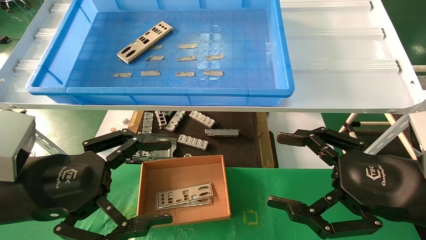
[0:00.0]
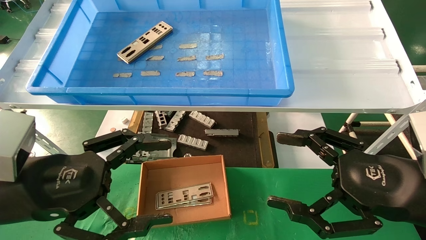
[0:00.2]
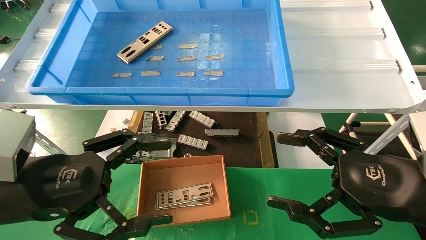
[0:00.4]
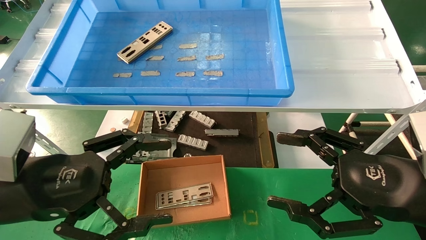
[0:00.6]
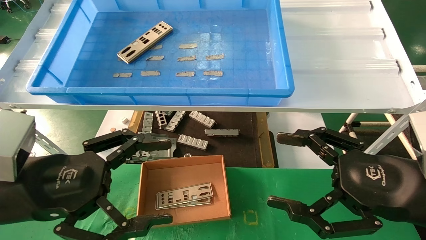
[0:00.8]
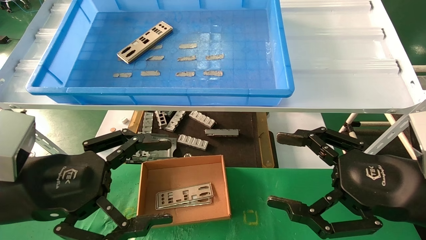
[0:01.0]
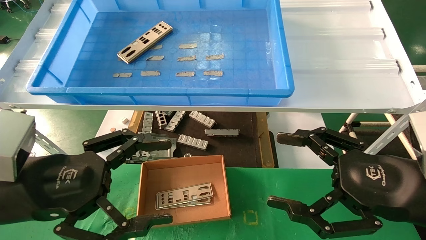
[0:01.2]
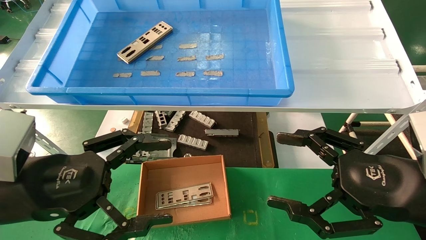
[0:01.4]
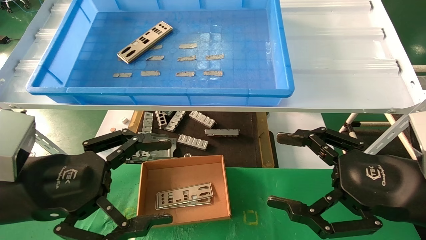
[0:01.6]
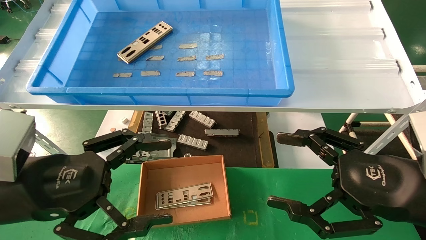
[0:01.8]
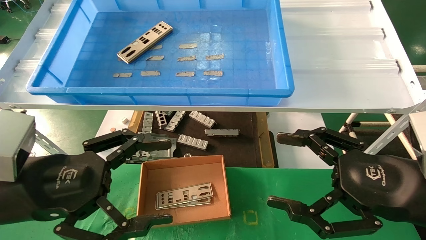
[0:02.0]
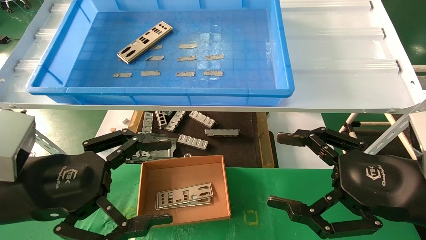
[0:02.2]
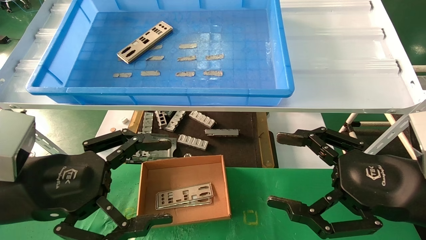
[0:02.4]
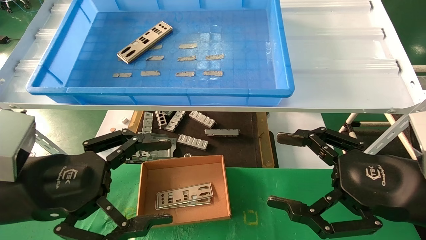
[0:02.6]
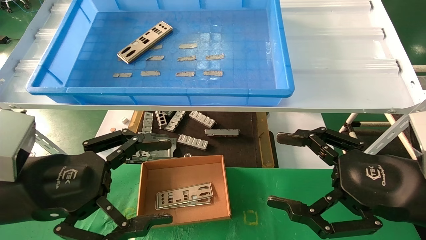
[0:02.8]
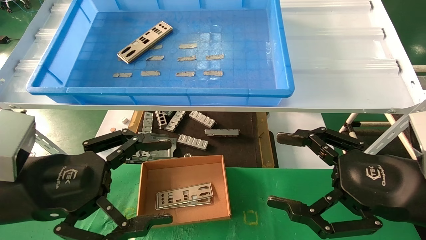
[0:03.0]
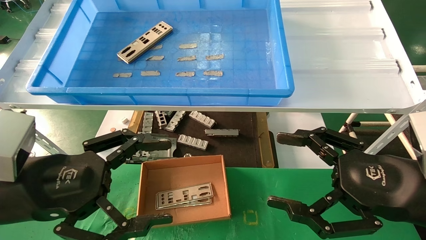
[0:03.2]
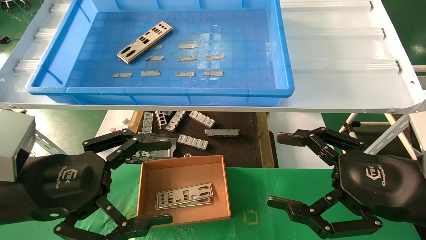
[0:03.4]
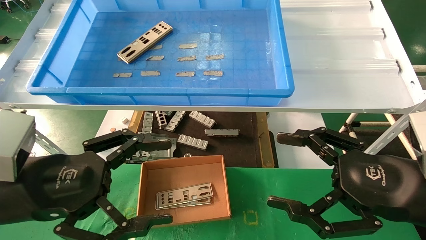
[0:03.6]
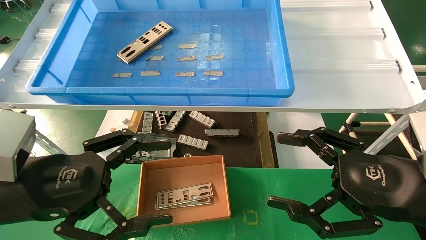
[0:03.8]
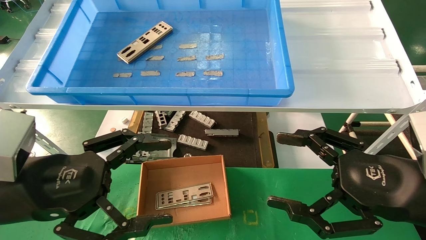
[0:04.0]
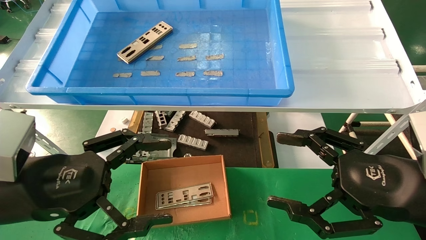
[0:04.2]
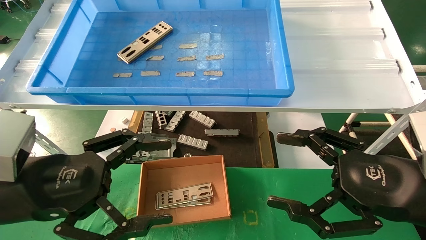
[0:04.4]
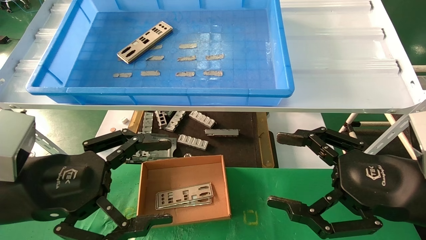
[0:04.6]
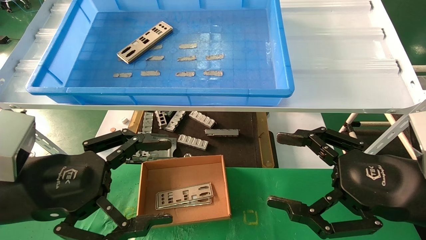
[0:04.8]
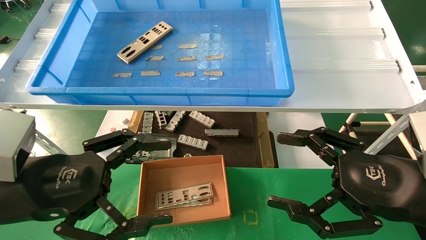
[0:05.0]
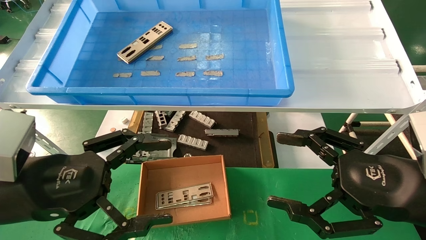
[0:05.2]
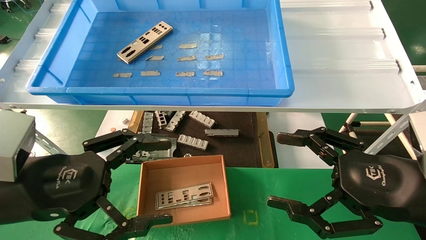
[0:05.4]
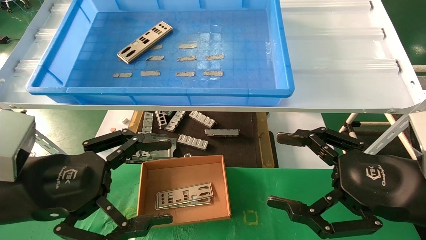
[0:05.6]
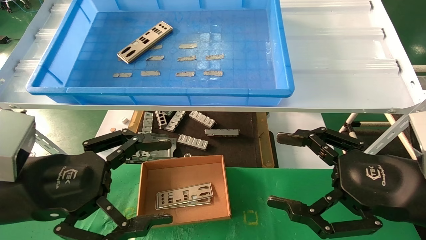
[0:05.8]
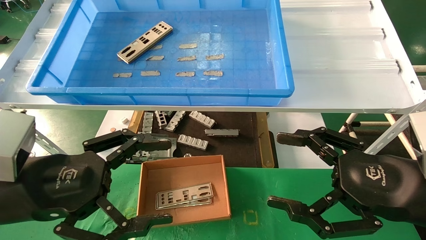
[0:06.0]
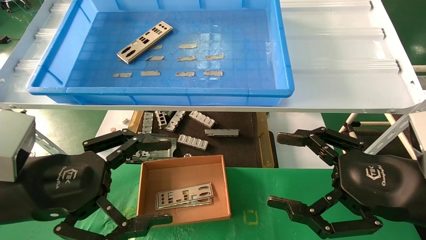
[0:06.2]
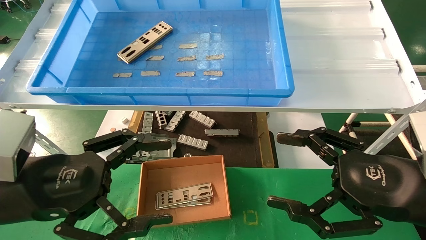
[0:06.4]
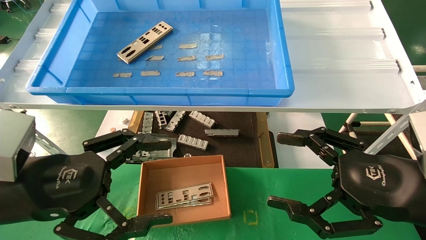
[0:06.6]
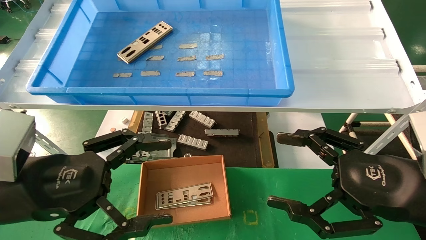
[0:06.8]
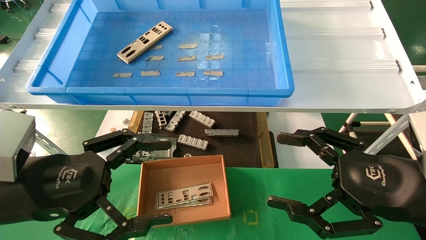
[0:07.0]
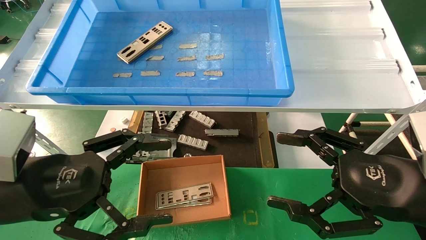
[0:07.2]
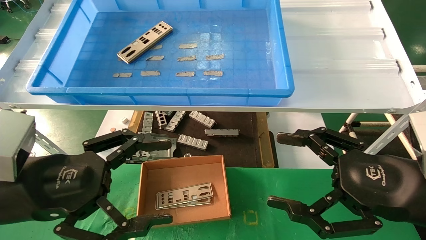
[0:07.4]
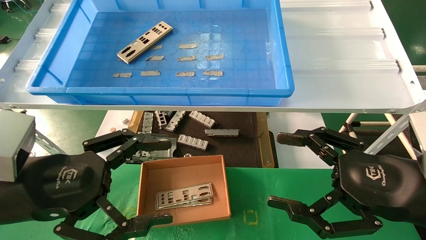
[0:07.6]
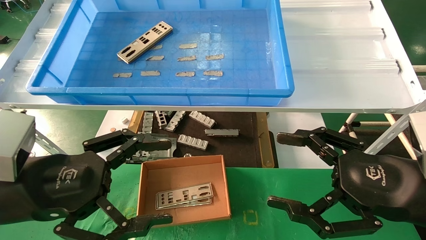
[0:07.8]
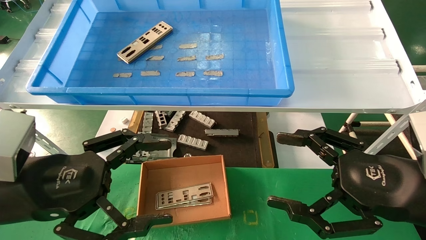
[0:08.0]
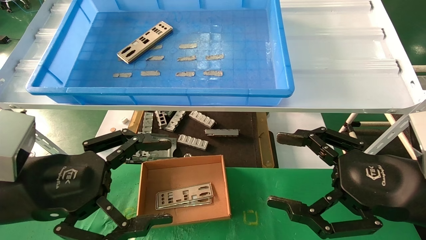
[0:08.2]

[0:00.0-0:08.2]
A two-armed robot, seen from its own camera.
Task of the whole recording: pick up the parts on the tray and put them in the cardboard box.
0:00.0 to 0:08.2: Neither gripper changes place.

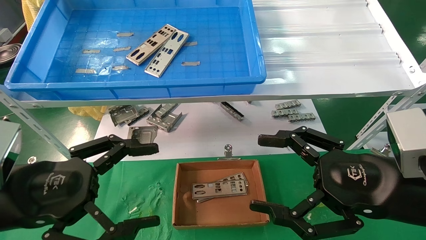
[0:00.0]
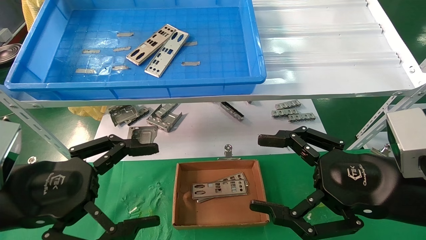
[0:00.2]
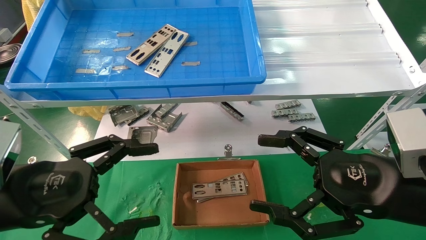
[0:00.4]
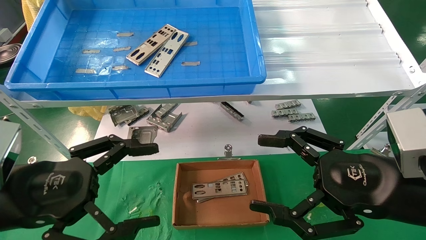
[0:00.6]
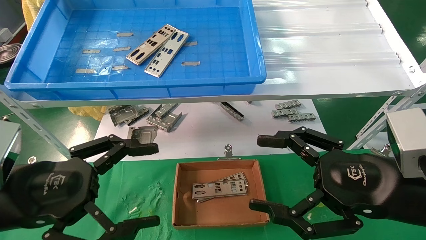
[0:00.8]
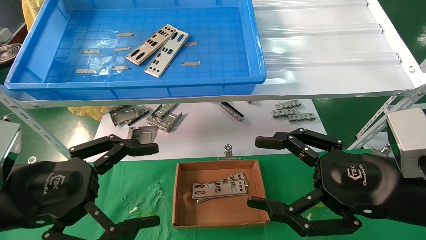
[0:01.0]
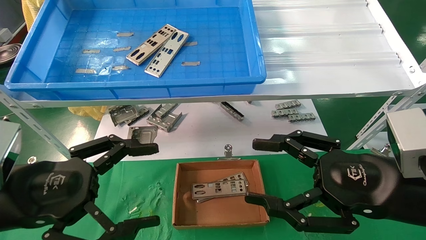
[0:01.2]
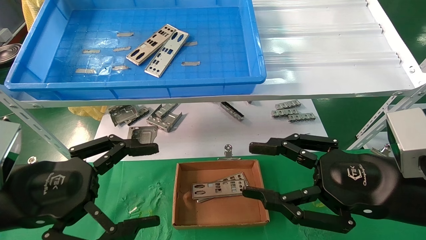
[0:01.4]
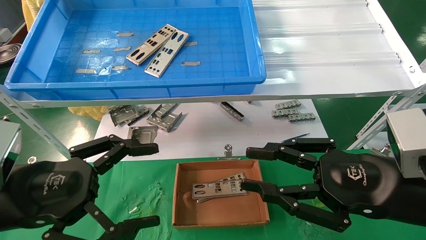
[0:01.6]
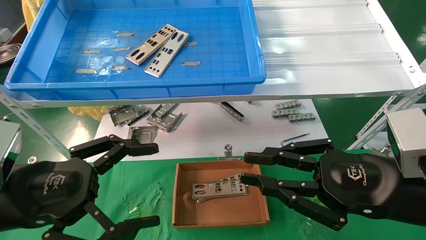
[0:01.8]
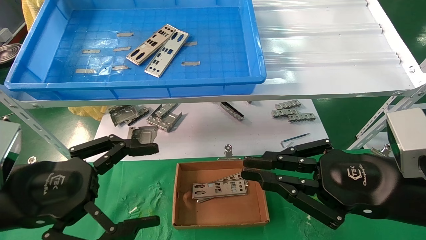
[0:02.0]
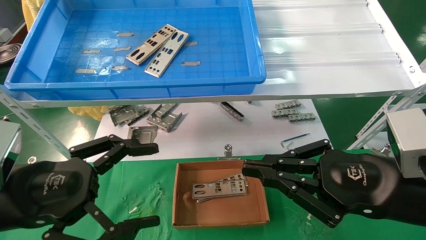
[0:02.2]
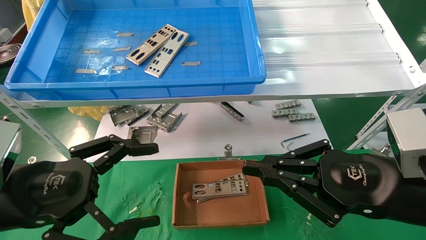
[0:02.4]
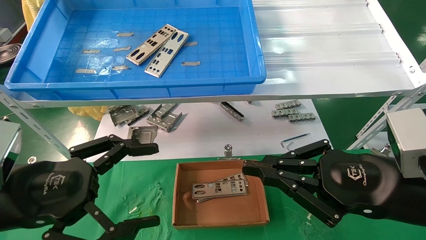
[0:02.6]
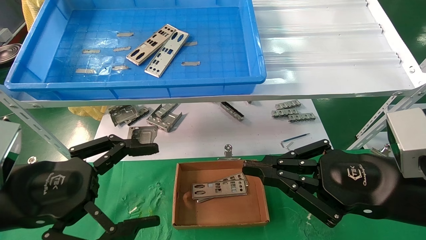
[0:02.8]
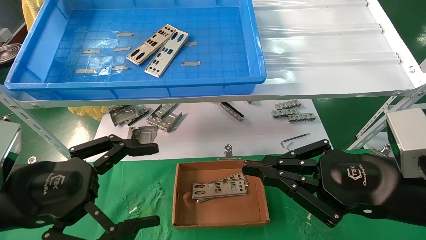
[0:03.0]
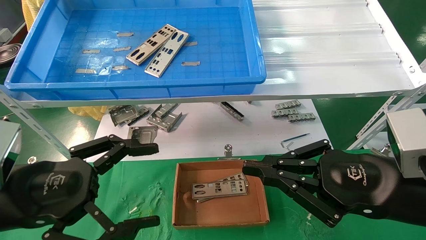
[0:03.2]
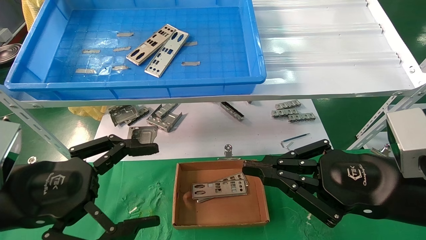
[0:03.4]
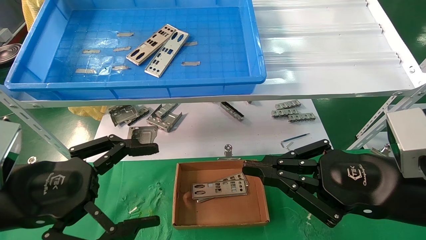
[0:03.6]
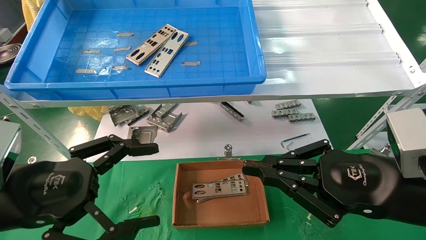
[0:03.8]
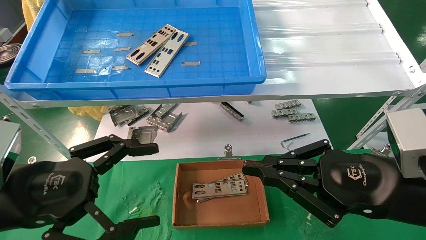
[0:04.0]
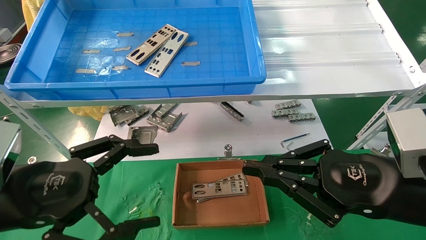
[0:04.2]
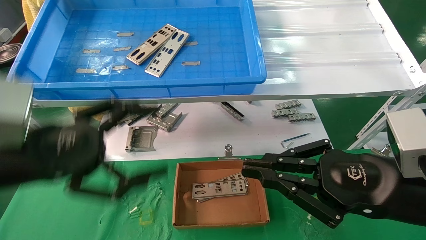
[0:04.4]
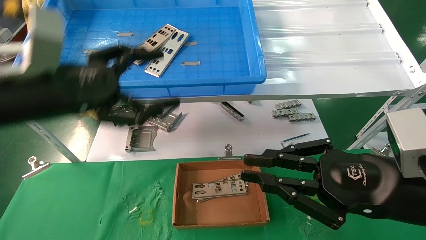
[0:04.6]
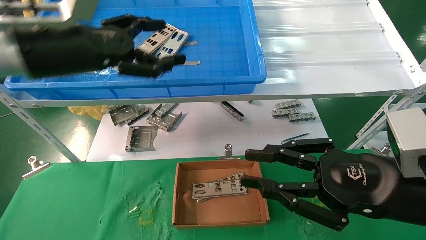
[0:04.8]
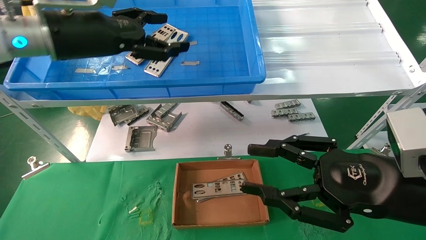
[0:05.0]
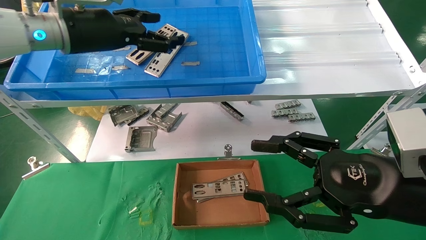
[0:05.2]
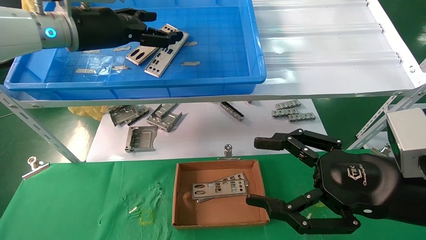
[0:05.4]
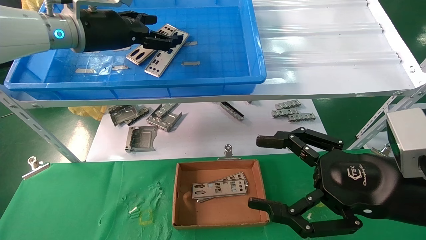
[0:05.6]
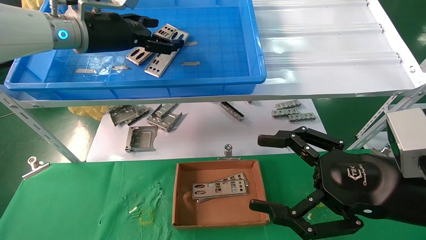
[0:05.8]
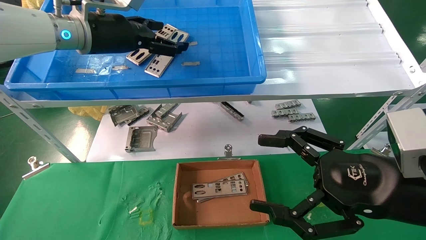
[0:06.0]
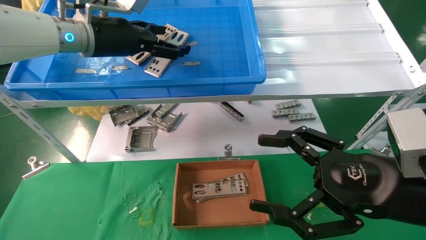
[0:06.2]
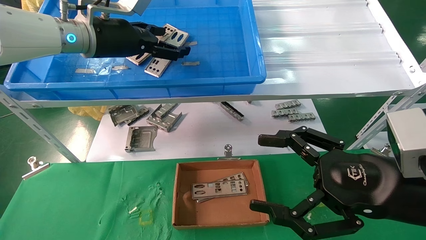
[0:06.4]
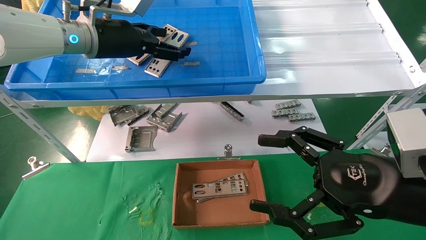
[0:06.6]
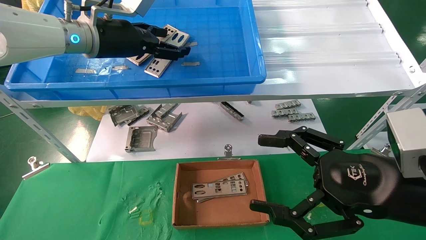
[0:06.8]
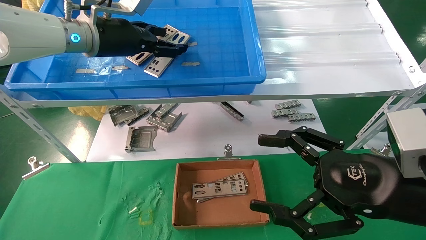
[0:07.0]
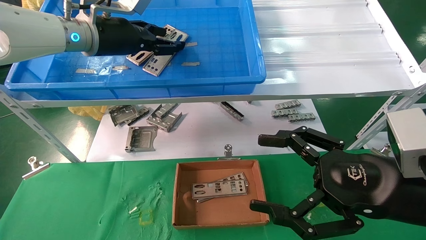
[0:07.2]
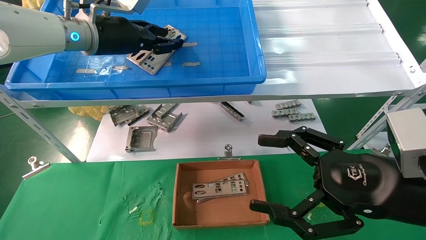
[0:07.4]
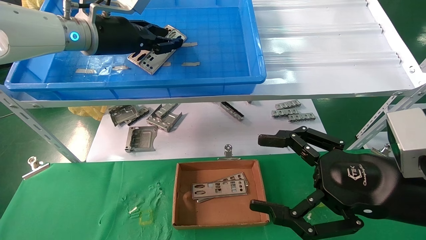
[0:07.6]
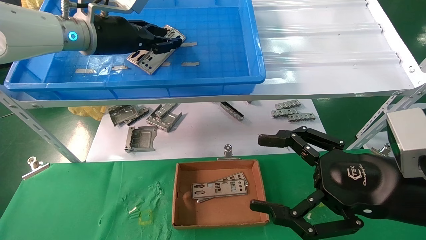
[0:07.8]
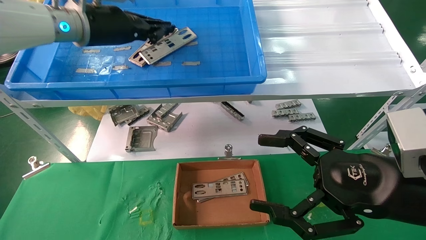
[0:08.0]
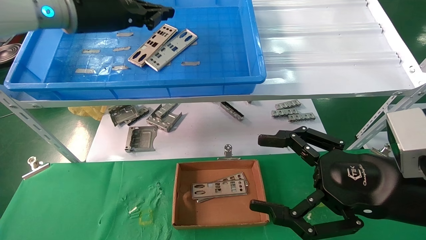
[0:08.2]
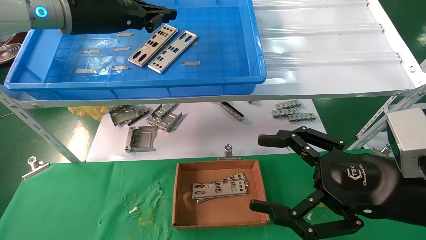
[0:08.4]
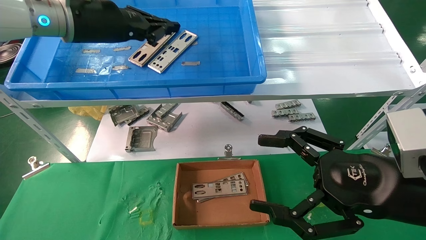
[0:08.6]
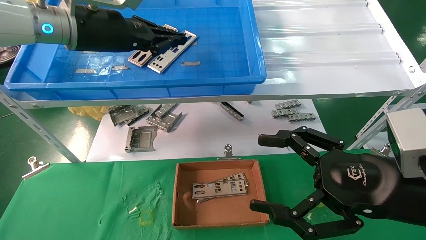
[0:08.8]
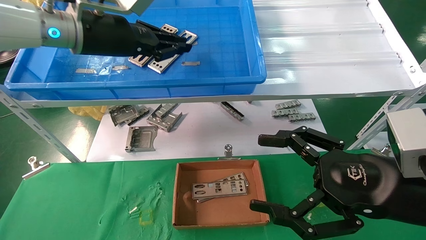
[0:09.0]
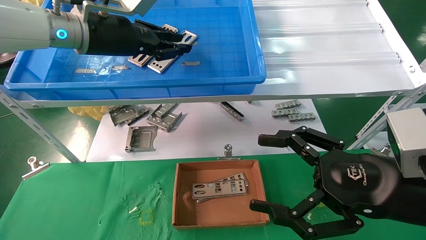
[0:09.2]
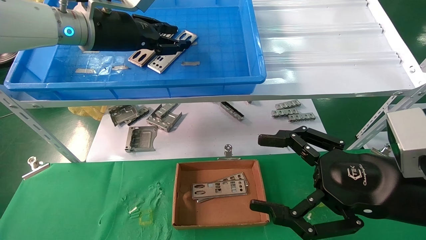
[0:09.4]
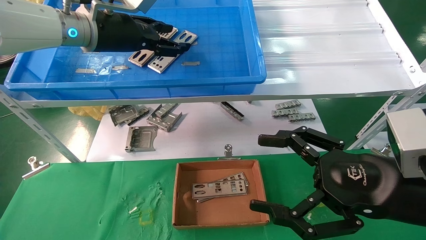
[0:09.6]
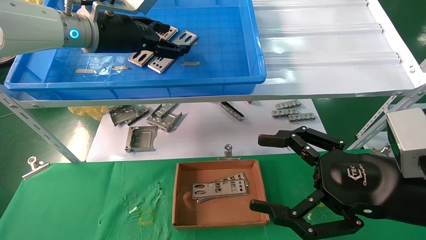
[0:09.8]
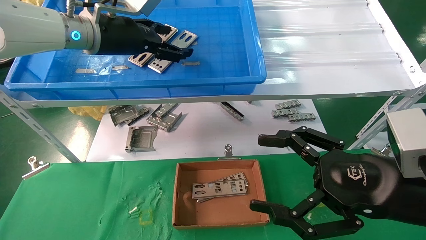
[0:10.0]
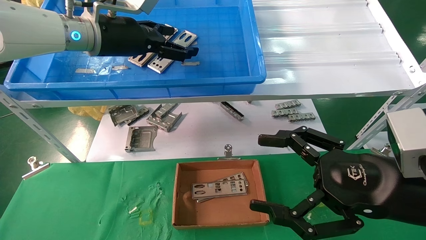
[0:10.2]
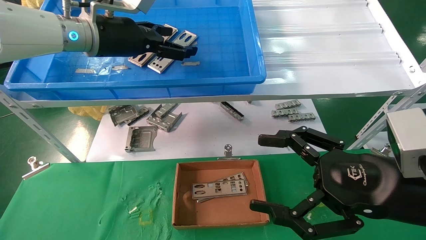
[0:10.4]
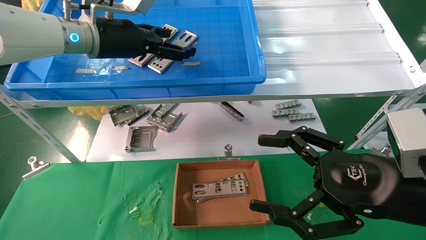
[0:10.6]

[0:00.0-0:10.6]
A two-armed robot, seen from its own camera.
Task of the whole recording: pick up the parts on the tray and put them in the cardboard box.
0:00.0 to 0:01.6: The right gripper closes up.
0:01.6 to 0:03.0: The right gripper closes its fingers.
0:03.0 to 0:04.6: The left gripper goes some 15 cm upward and forward.
0:04.6 to 0:06.0: The right gripper opens its fingers; the left gripper moves forward and upward, about 15 cm.
0:06.0 to 0:07.6: The left gripper closes.
0:07.6 to 0:09.0: There are only small adjustments of the grippers.
0:09.0 to 0:10.6: The left gripper opens its fingers.
